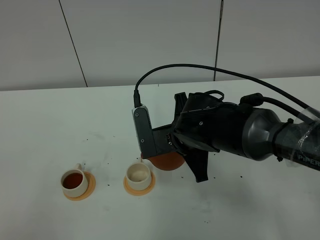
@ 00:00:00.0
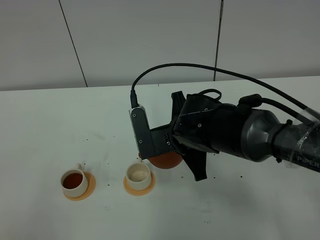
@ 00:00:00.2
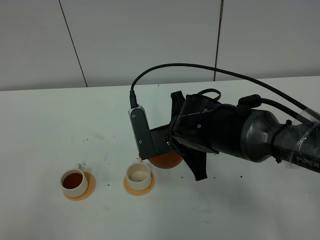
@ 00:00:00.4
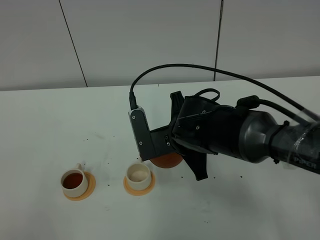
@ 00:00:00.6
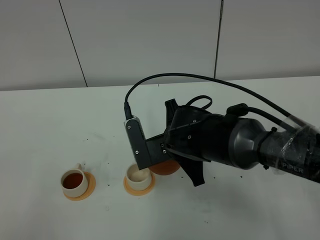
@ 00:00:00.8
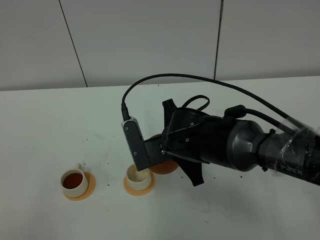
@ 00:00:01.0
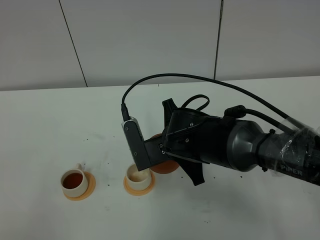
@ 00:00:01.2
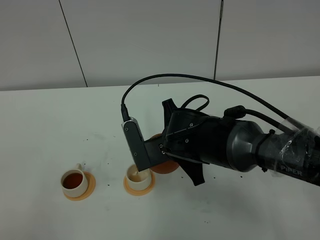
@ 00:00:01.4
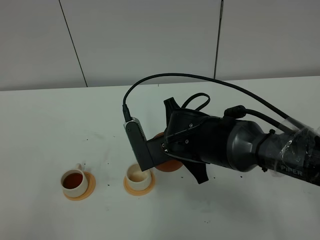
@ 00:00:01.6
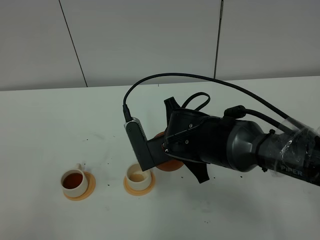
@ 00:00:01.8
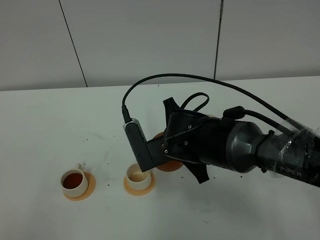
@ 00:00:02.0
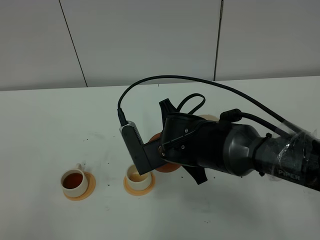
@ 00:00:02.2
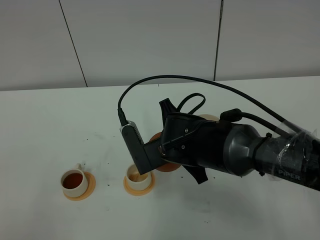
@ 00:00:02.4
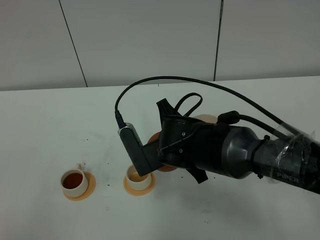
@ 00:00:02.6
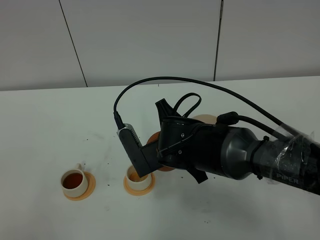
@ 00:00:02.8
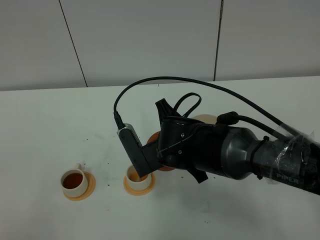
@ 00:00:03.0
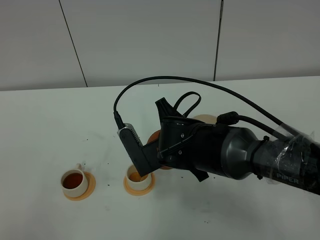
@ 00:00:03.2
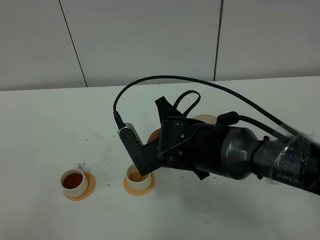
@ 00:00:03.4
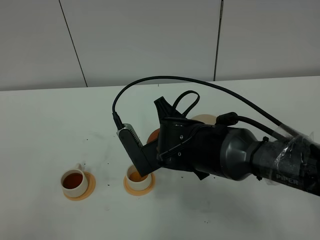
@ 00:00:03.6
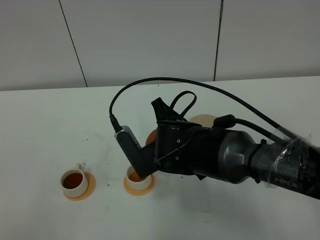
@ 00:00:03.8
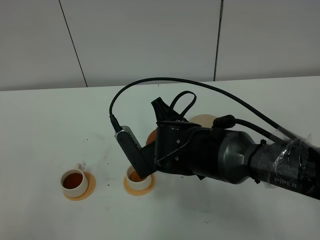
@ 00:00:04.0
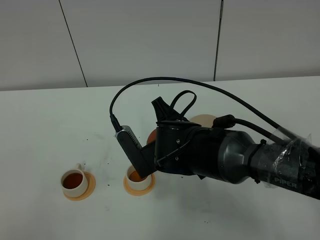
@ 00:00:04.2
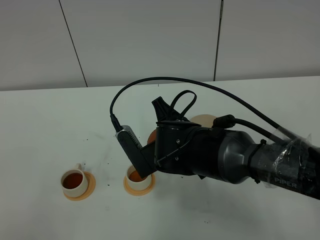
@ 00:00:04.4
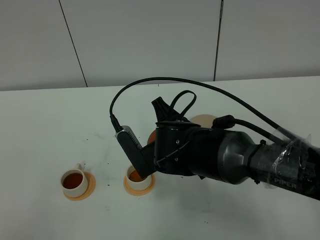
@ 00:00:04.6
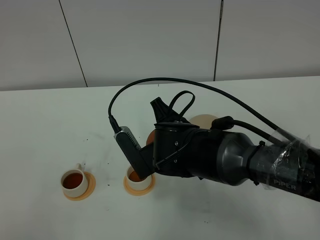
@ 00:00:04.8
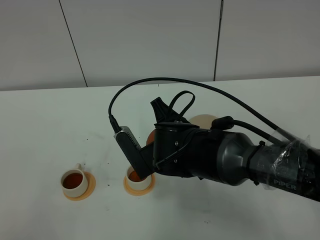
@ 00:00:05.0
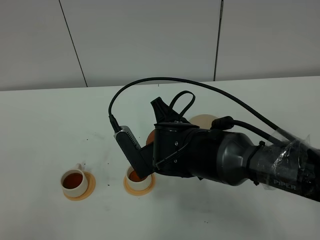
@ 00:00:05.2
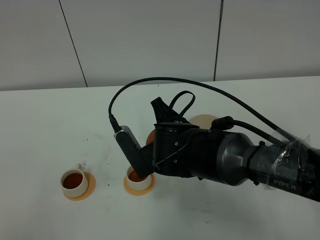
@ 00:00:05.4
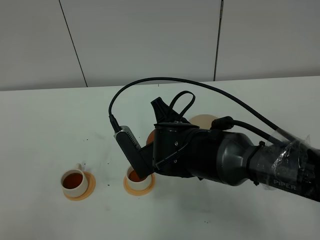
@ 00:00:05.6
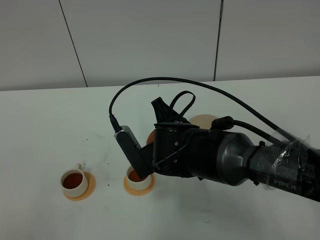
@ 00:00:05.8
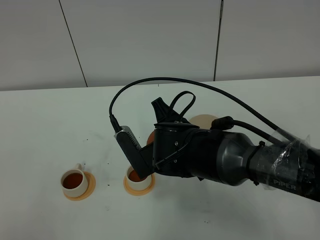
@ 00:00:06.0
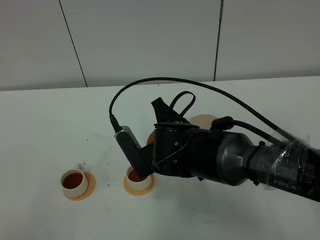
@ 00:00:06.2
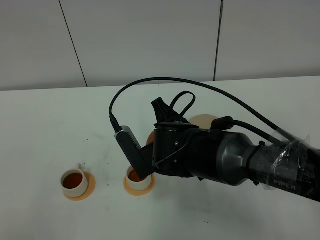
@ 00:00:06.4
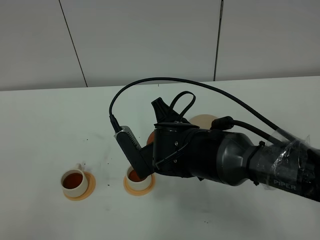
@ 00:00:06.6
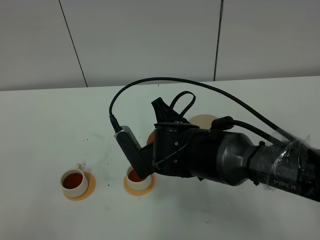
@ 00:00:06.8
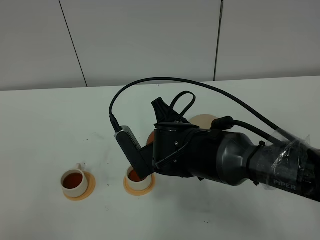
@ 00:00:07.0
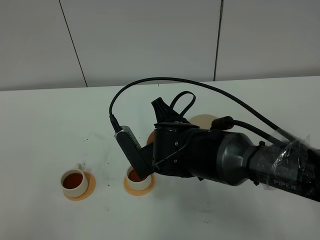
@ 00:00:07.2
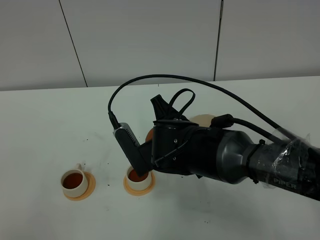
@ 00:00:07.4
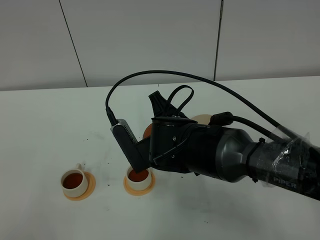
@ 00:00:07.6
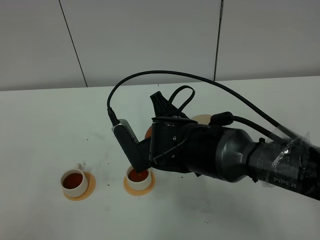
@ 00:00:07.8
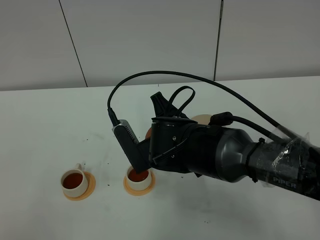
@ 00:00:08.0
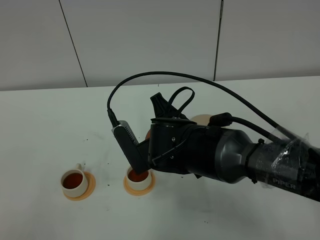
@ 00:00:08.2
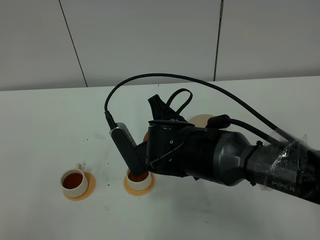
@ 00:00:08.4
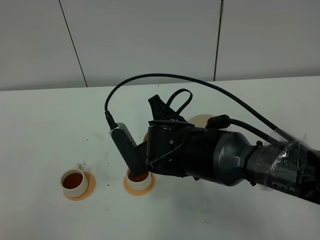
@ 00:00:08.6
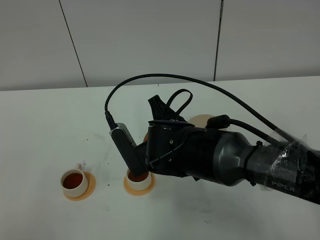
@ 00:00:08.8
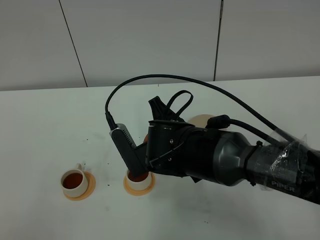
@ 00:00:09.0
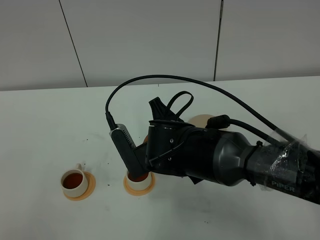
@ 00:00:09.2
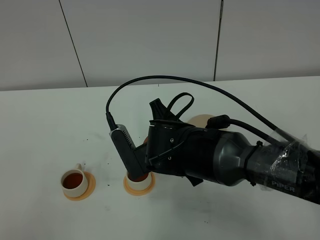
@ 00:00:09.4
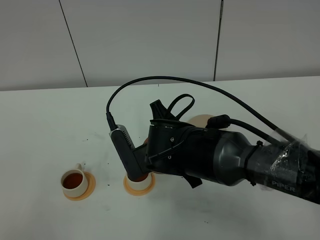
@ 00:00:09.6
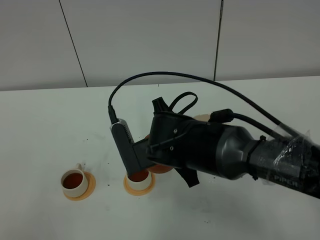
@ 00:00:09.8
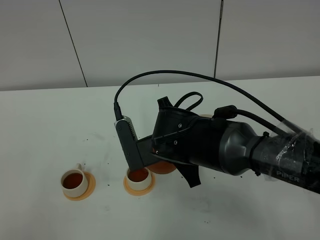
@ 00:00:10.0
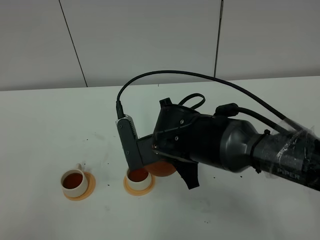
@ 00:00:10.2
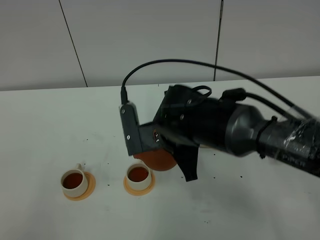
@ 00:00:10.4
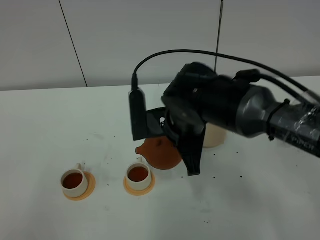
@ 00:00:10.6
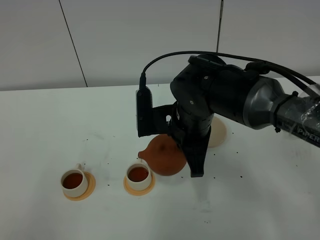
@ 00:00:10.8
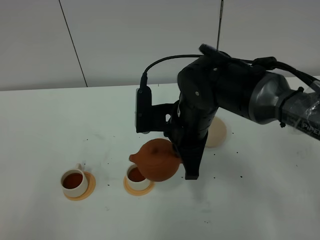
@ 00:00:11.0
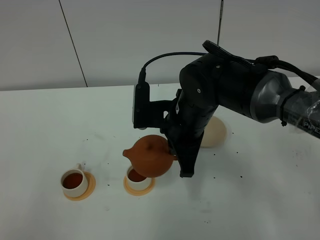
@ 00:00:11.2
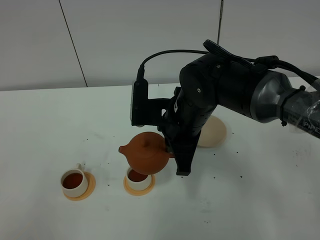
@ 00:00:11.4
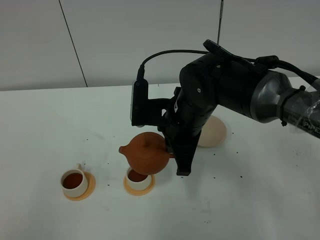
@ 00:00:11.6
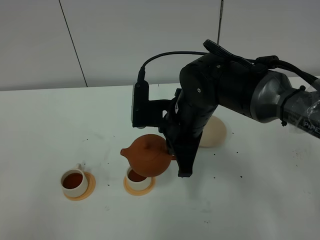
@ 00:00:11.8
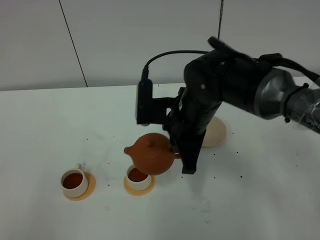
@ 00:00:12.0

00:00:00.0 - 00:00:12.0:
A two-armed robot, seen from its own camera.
Task of the whole recording: grasp the brown teapot and pour the tea into the two white teacups one by one, put the brown teapot back in its original place.
Step, 00:00:00.0 - 00:00:11.4: Pour tea into the teacup with the right gripper.
00:00:00.0 - 00:00:03.0: The grippers stay close to where they were, moving slightly.
00:00:03.0 - 00:00:04.4: The grippers make only small movements.
00:00:04.4 - 00:00:09.0: Neither gripper changes place.

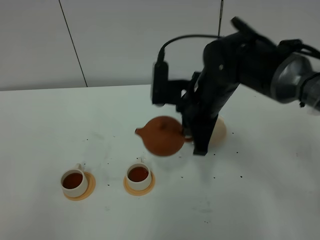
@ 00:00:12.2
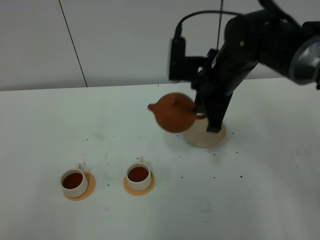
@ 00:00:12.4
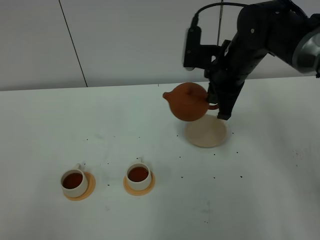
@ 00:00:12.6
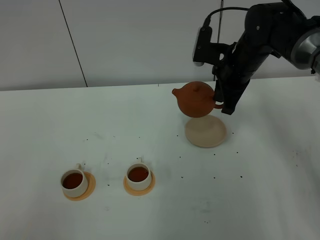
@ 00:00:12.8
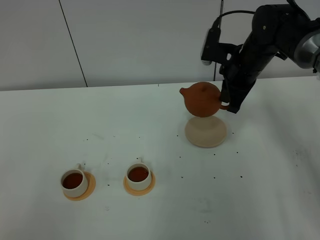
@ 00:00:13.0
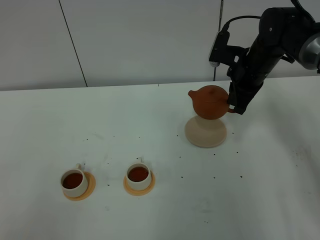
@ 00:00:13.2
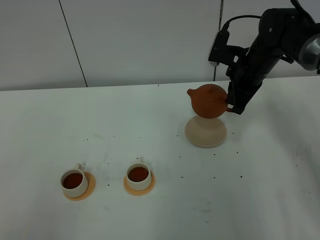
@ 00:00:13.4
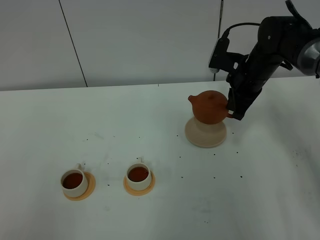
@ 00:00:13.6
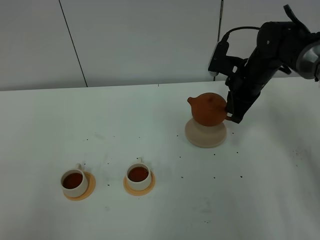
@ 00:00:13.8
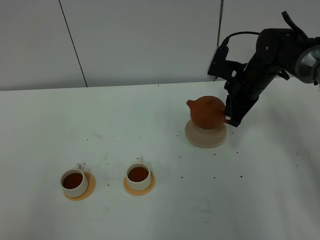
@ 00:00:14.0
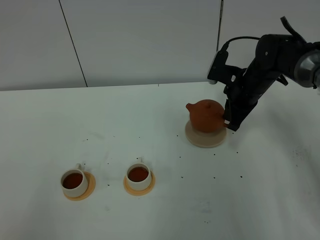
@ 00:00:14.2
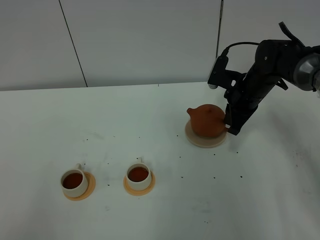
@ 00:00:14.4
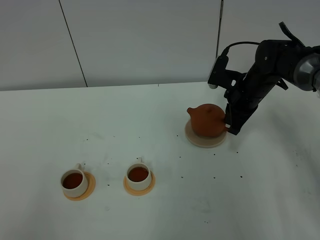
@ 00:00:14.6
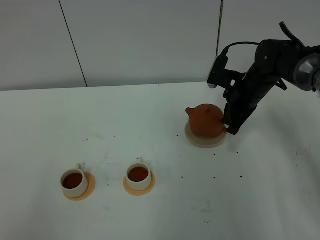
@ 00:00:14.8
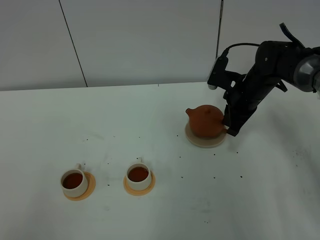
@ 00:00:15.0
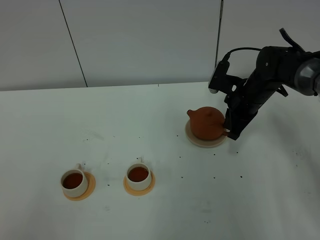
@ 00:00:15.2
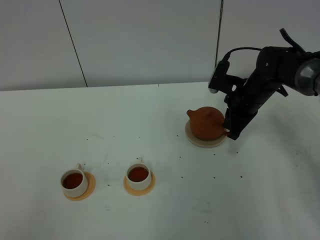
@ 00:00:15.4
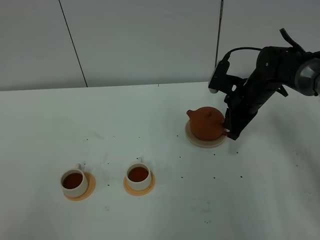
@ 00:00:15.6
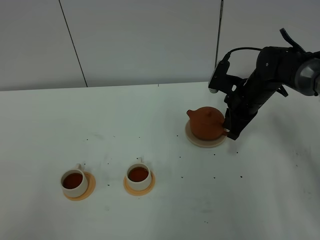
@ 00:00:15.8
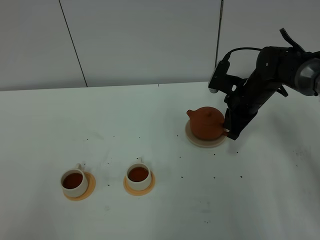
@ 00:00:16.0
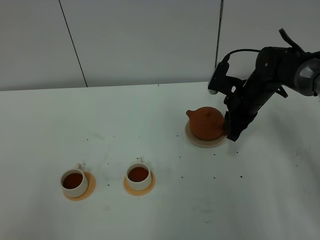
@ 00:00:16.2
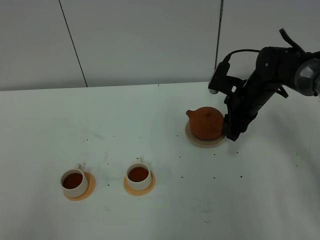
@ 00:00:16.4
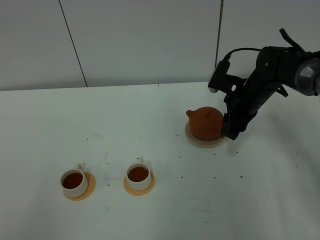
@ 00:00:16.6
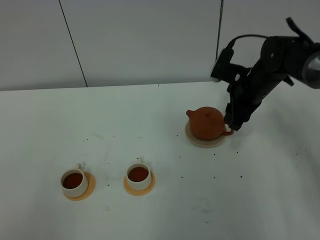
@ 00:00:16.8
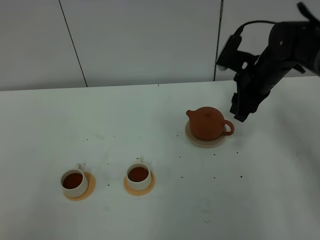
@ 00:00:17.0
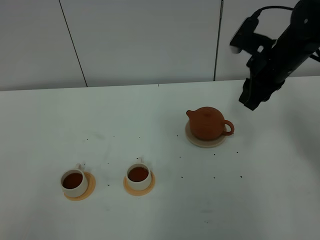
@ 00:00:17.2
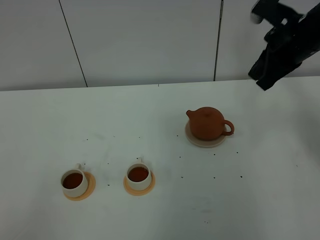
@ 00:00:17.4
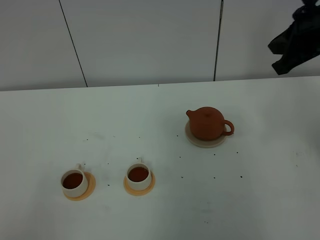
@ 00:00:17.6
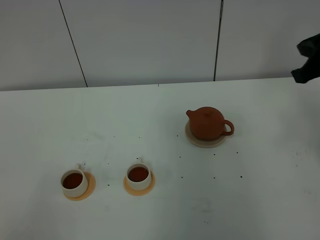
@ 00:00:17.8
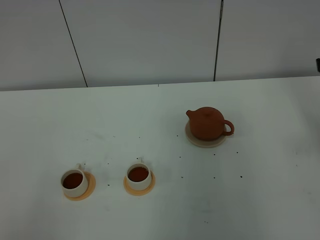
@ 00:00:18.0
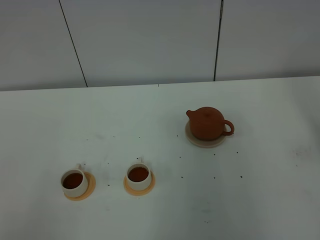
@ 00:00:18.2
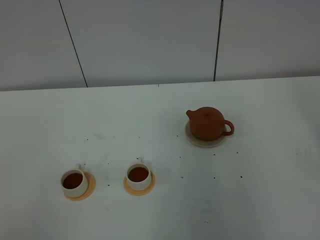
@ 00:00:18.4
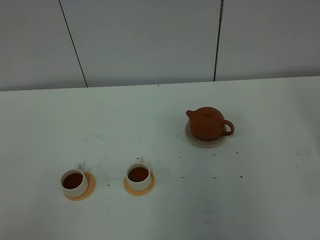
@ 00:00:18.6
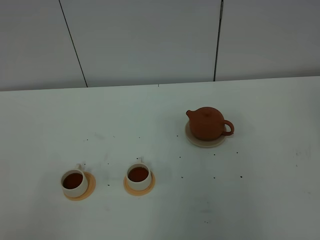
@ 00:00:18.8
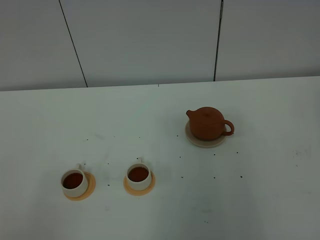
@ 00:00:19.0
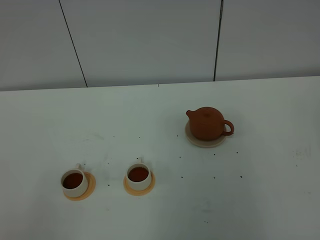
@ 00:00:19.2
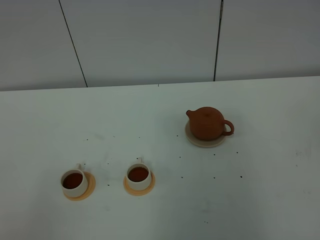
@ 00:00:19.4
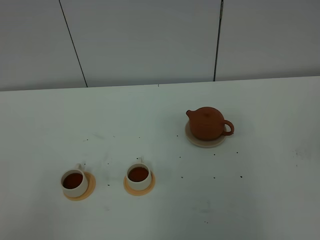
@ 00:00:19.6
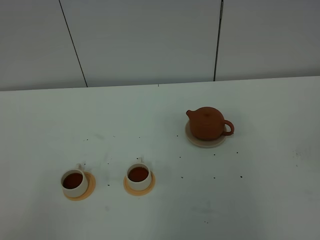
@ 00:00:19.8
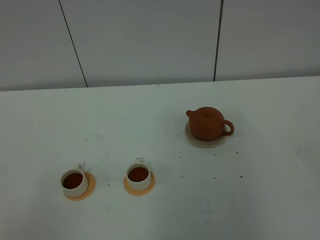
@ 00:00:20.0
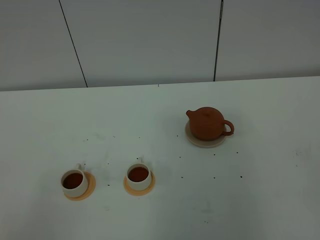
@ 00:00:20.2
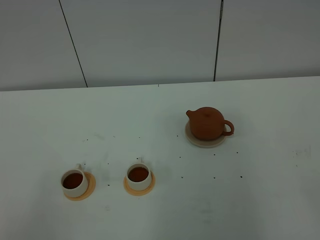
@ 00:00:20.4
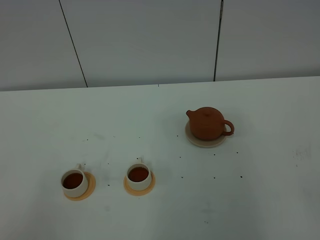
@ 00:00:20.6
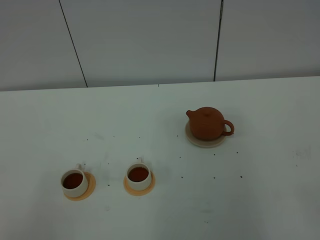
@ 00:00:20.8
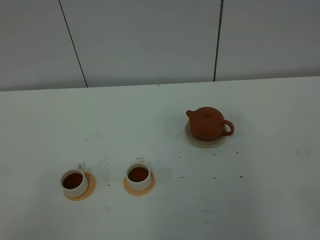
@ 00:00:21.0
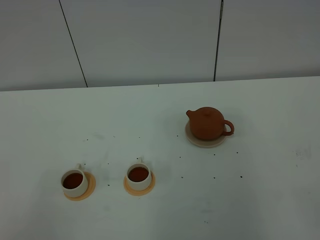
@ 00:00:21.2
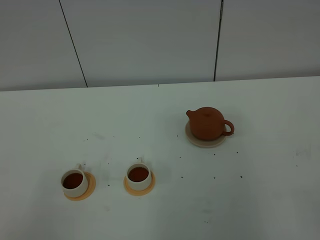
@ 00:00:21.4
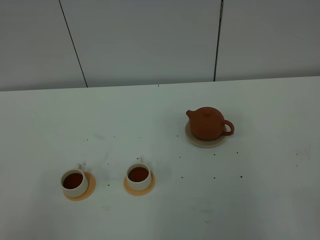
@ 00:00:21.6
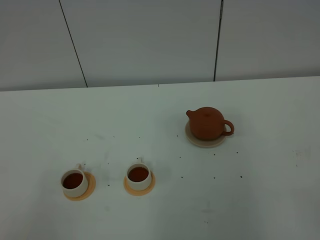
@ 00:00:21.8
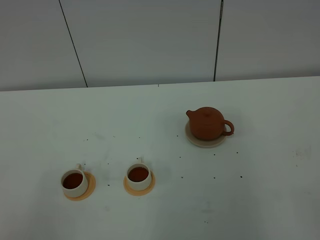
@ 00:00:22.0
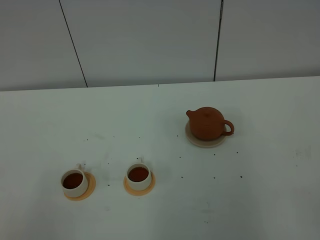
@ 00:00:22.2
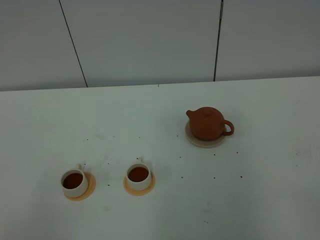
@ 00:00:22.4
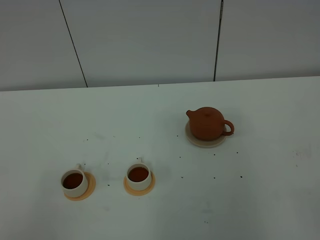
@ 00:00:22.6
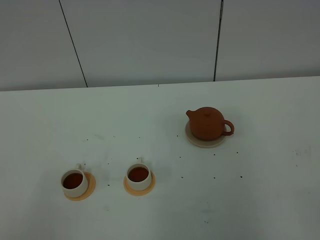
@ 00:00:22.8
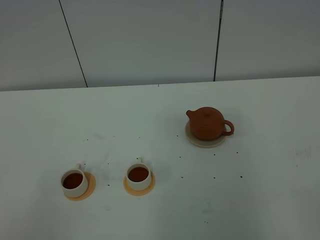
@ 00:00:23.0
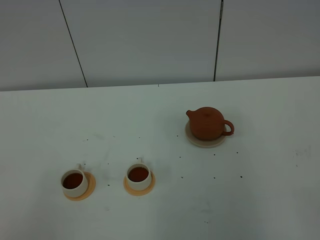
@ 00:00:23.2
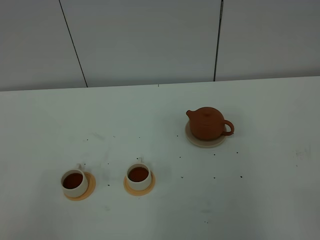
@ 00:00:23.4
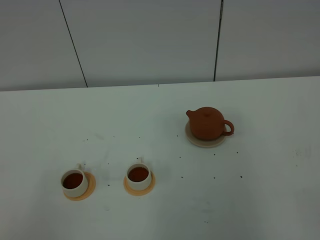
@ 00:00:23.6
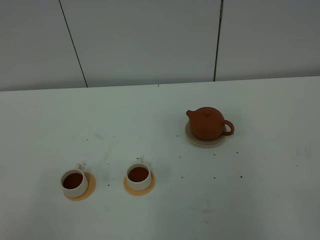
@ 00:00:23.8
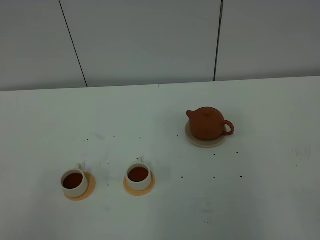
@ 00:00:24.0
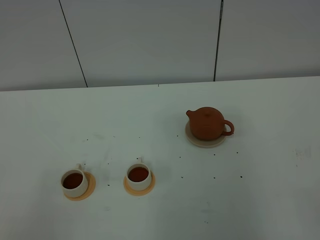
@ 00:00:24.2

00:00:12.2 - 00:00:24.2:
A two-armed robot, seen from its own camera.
Task of the whole recording: grasp the brown teapot and pour the tea into the two white teacups one by one, put the brown teapot back in its original place.
00:00:12.2 - 00:00:13.8: The right gripper moves forward, to the right and downward, roughly 15 cm.
00:00:13.8 - 00:00:15.2: There are only small adjustments of the grippers.
00:00:16.6 - 00:00:18.2: The right gripper goes approximately 35 cm backward, upward and to the right, and closes its fingers.
00:00:21.2 - 00:00:24.2: Neither gripper changes place.
